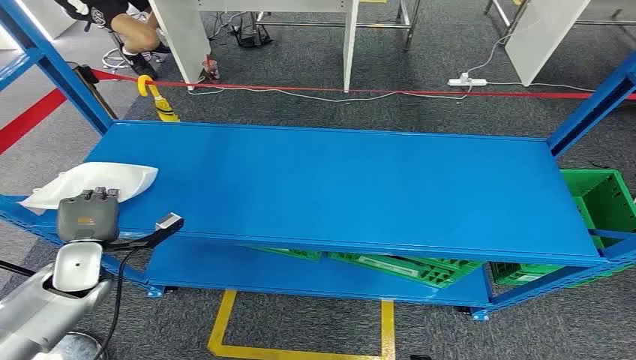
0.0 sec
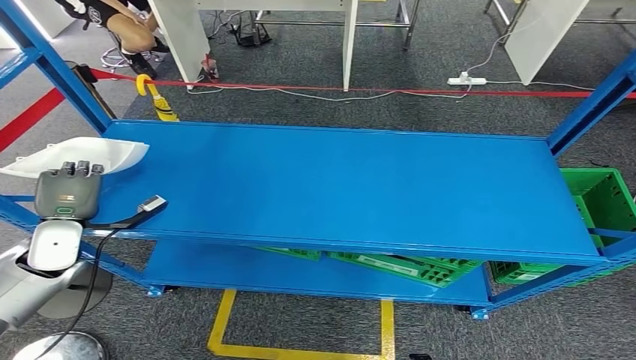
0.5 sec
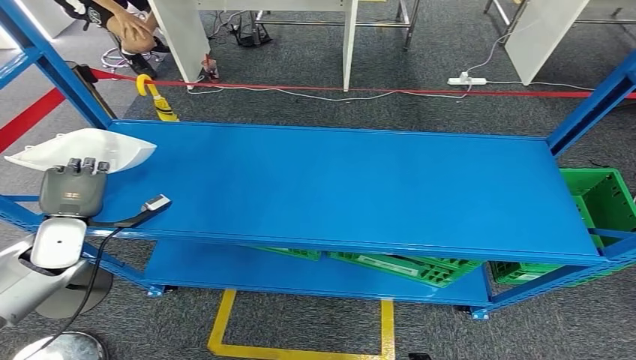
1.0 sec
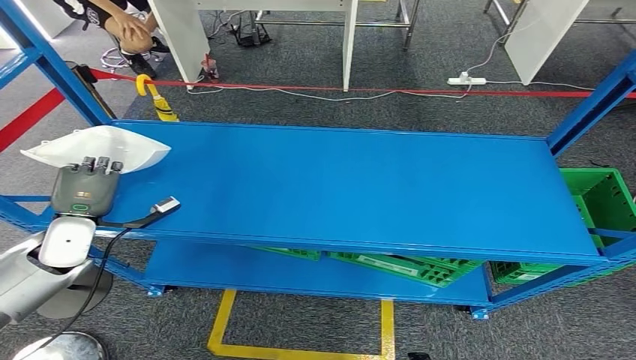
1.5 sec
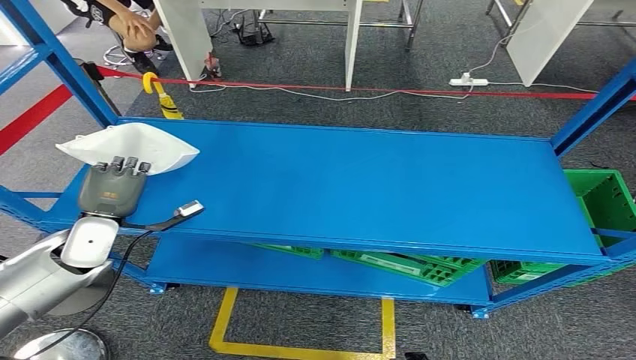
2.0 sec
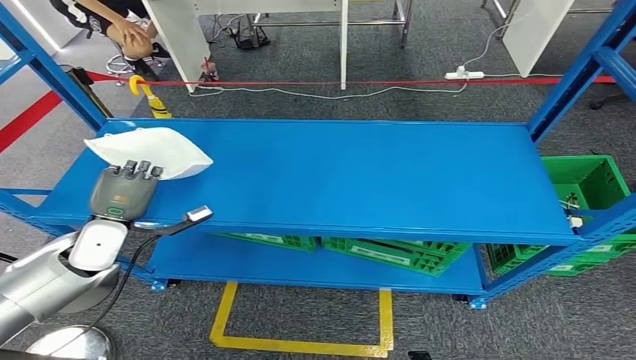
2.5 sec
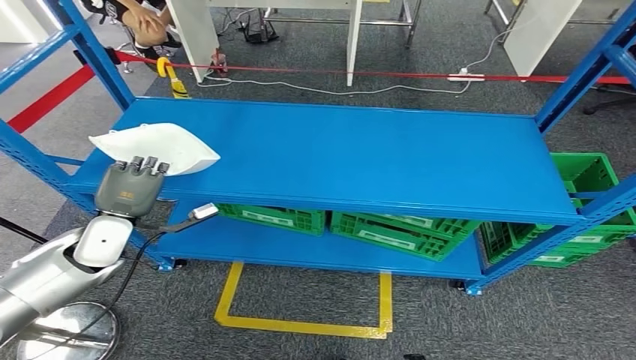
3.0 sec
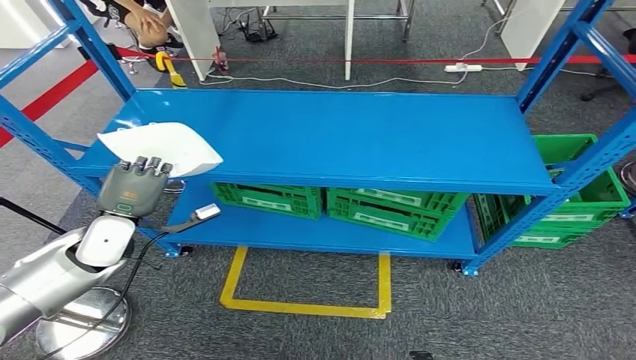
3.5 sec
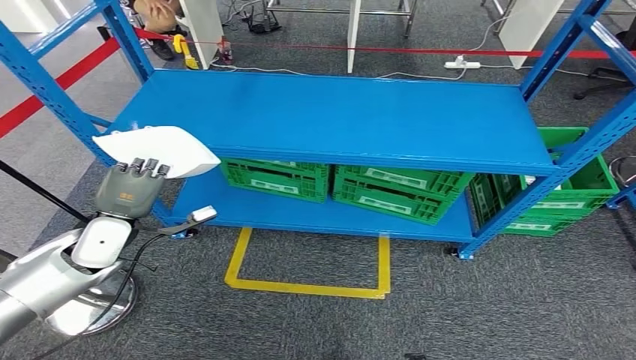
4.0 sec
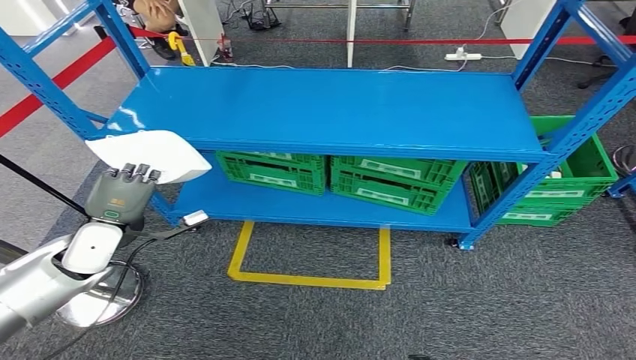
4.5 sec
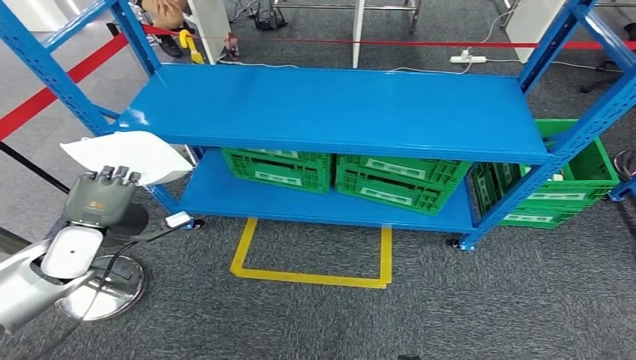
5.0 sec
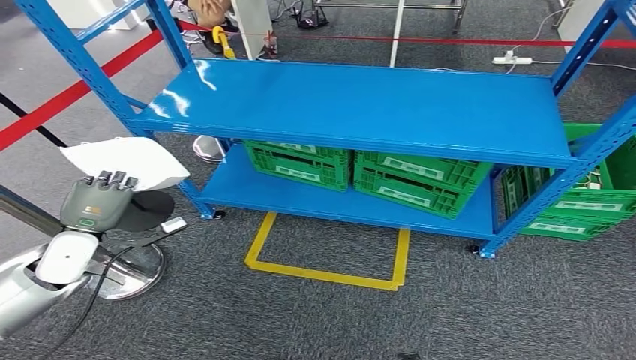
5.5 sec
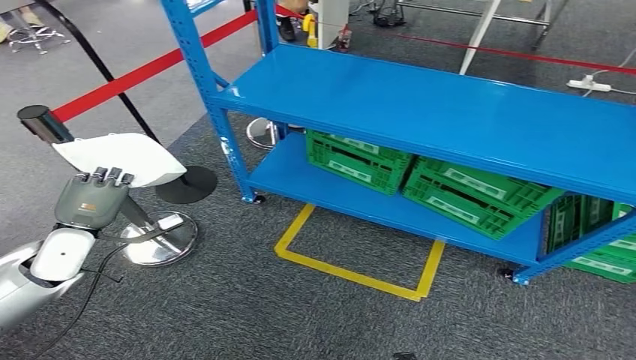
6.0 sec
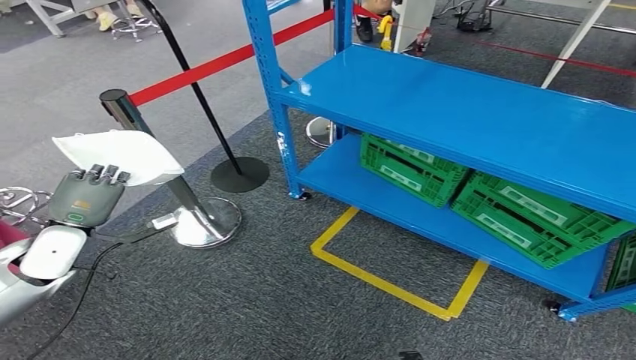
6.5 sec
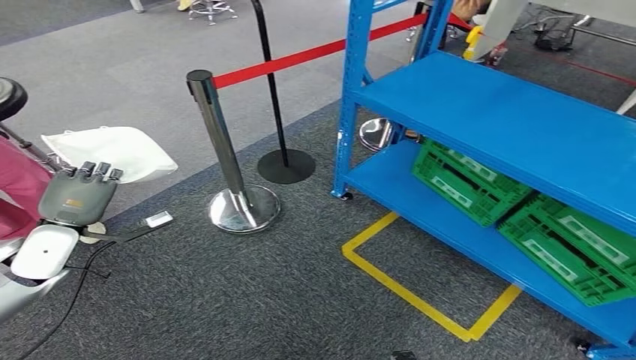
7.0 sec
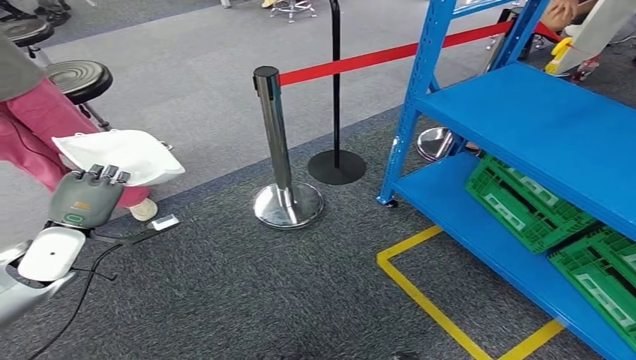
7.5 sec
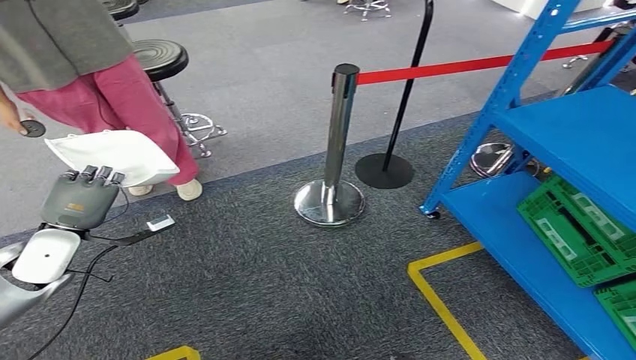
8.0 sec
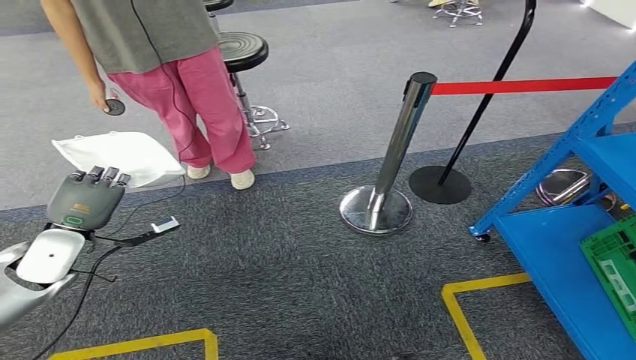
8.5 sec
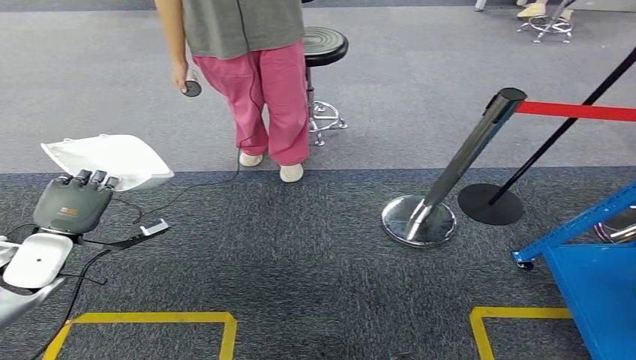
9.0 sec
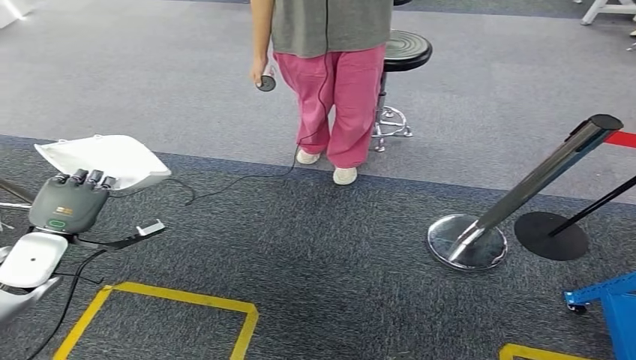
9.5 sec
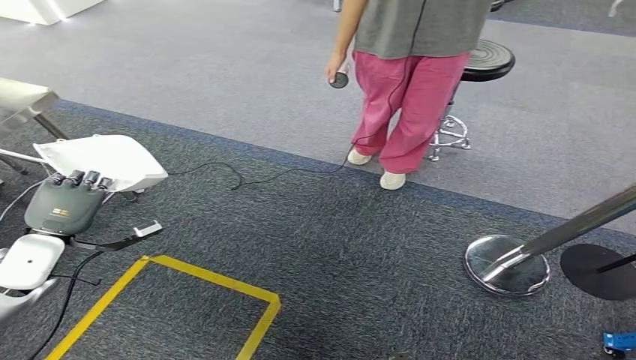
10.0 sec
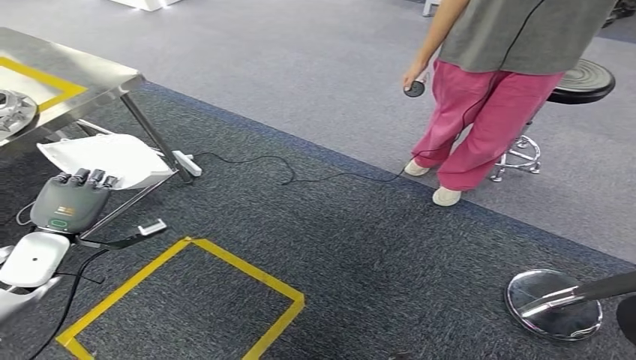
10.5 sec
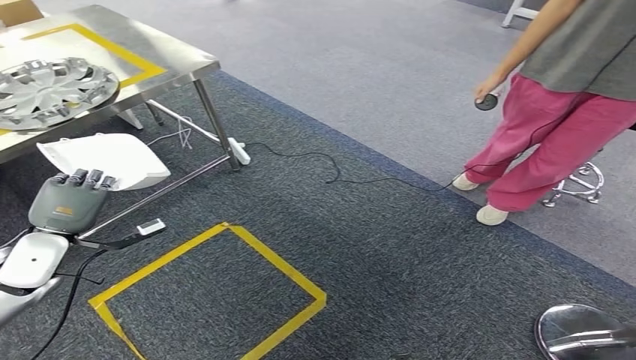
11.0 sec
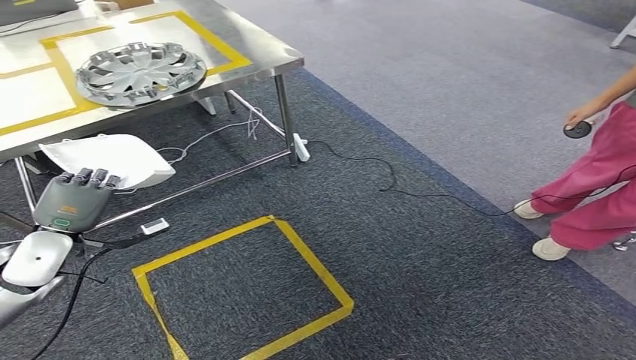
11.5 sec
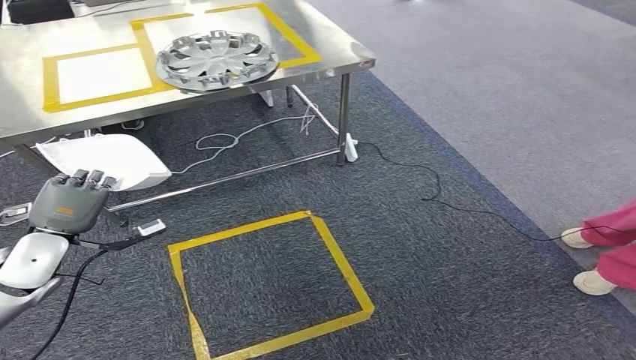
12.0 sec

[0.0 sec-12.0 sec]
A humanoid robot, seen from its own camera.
Step, 0.0 sec to 4.5 sec: Pick up the small component from the shelf.

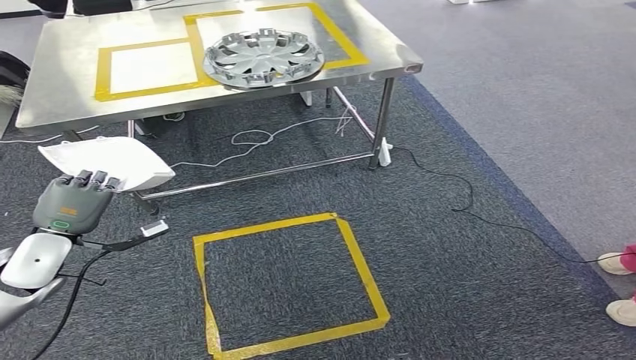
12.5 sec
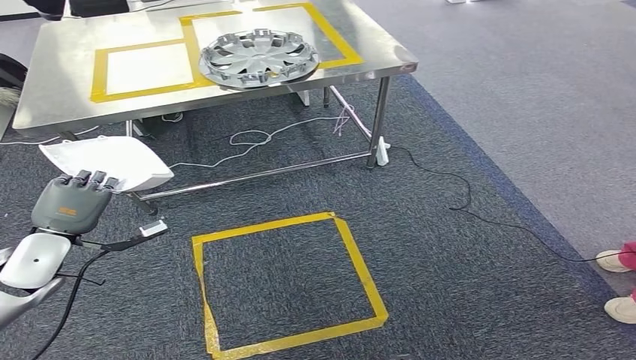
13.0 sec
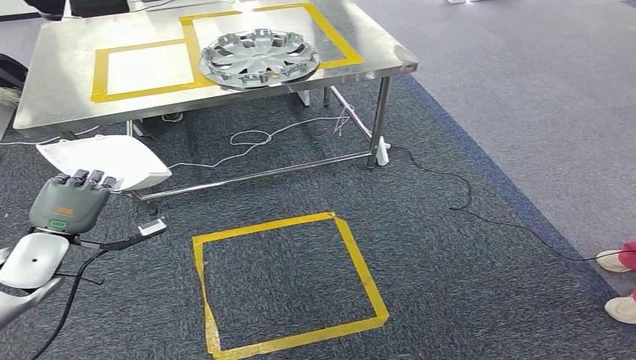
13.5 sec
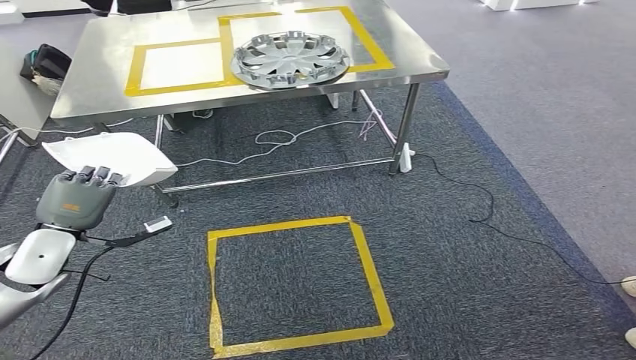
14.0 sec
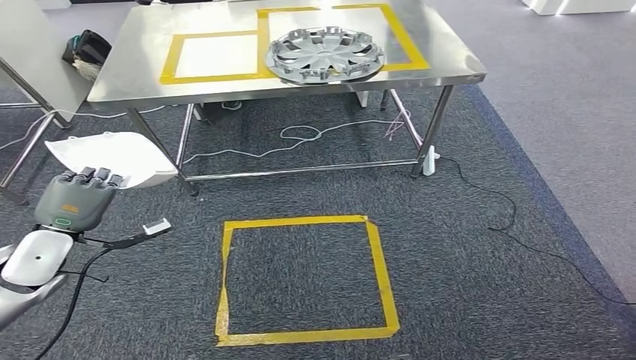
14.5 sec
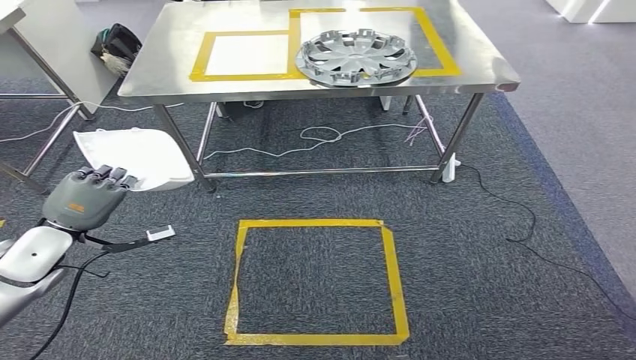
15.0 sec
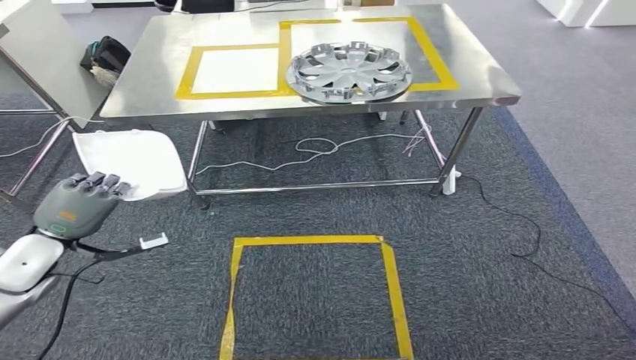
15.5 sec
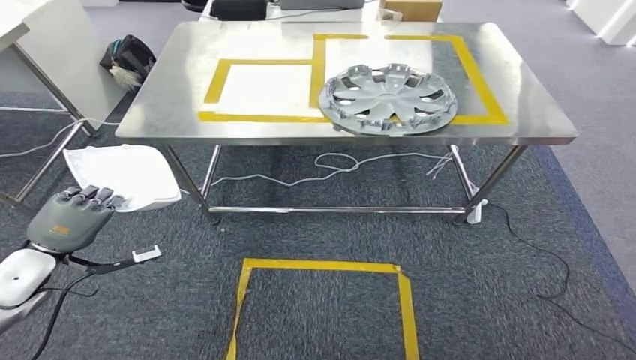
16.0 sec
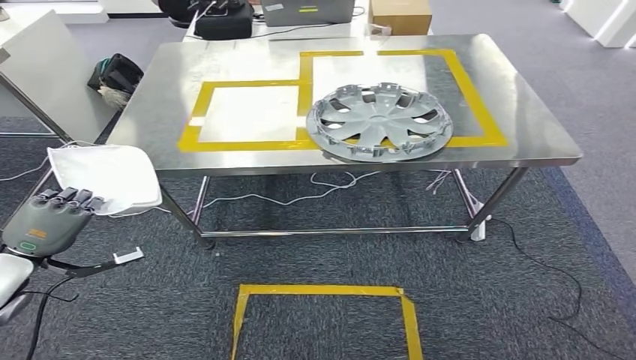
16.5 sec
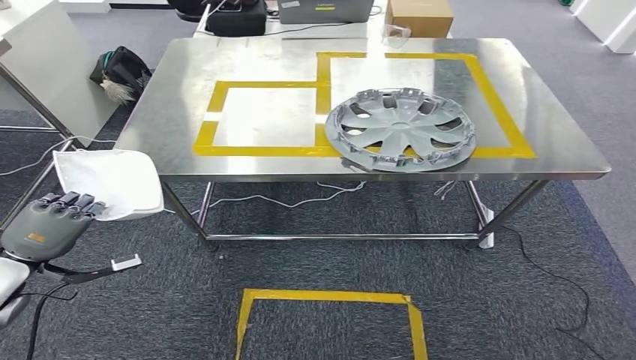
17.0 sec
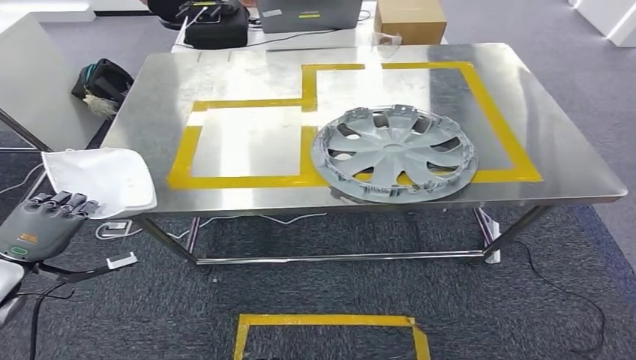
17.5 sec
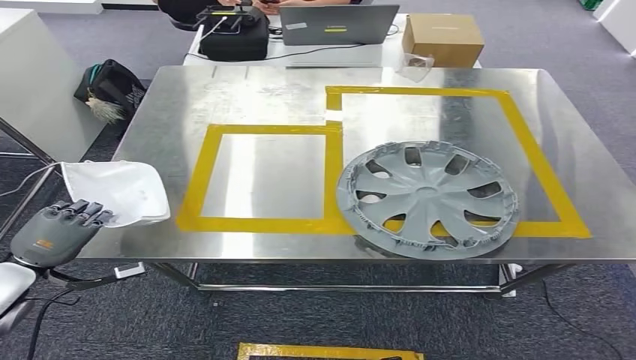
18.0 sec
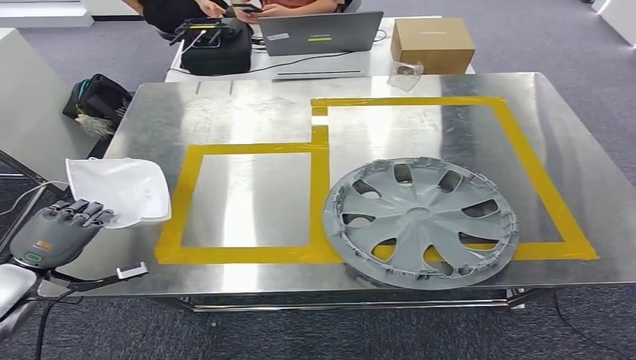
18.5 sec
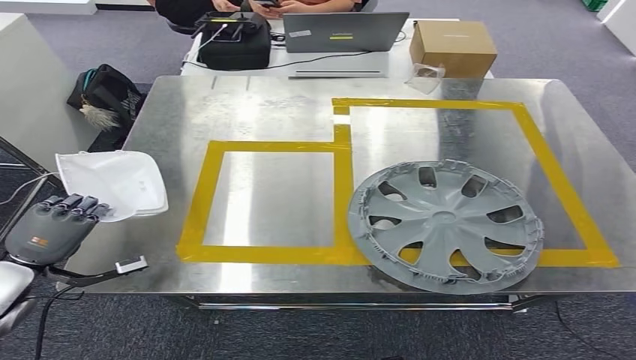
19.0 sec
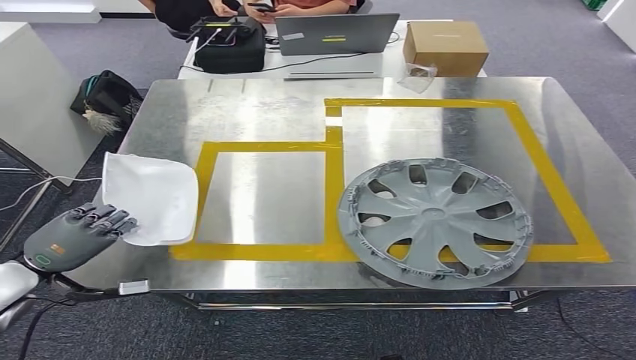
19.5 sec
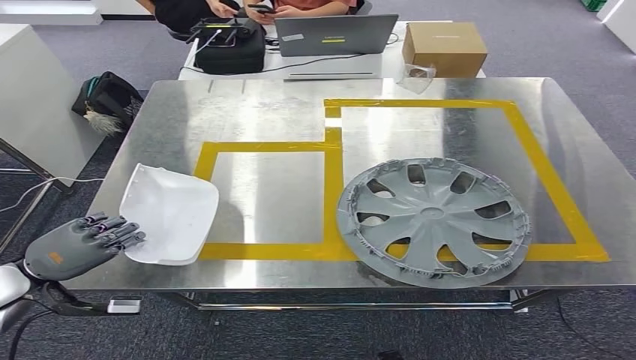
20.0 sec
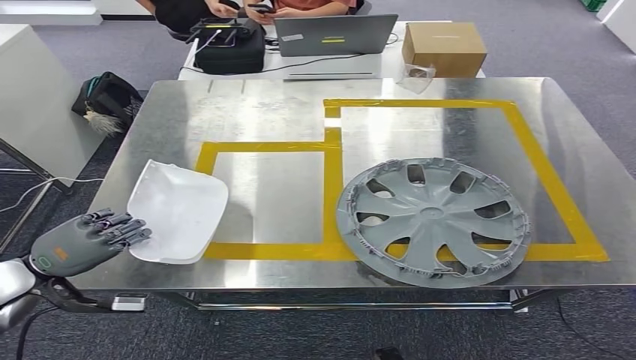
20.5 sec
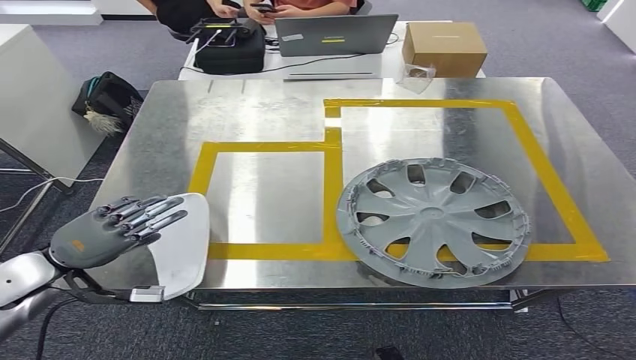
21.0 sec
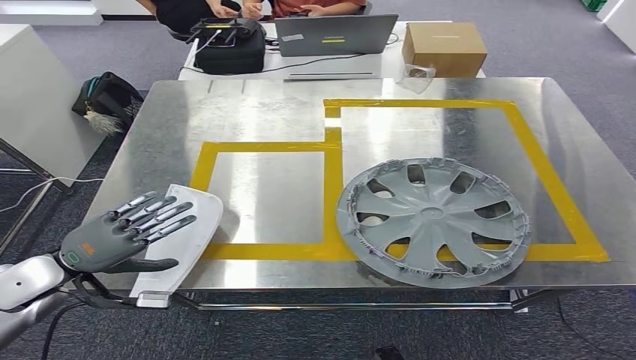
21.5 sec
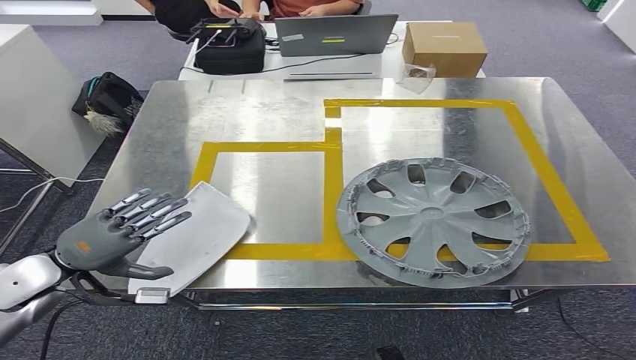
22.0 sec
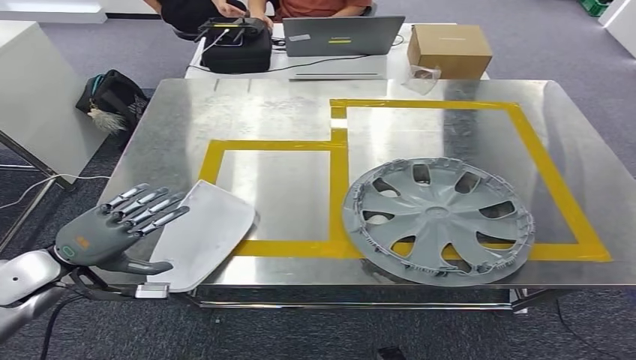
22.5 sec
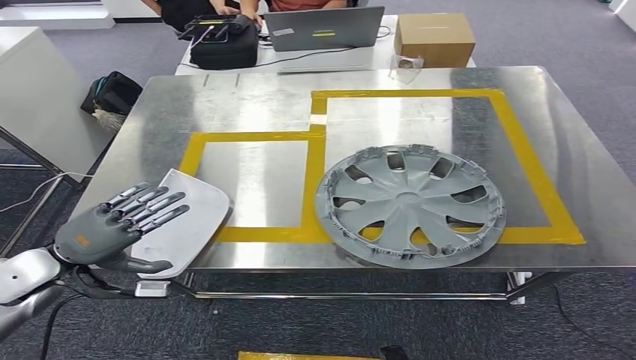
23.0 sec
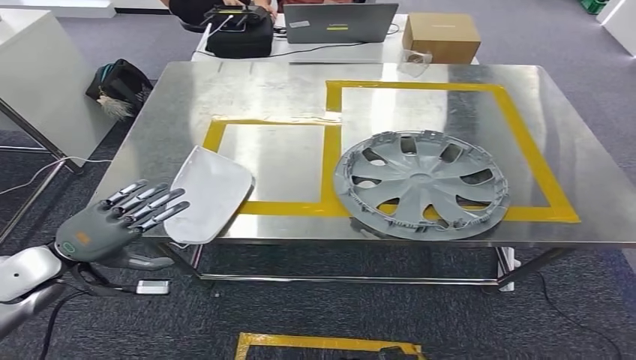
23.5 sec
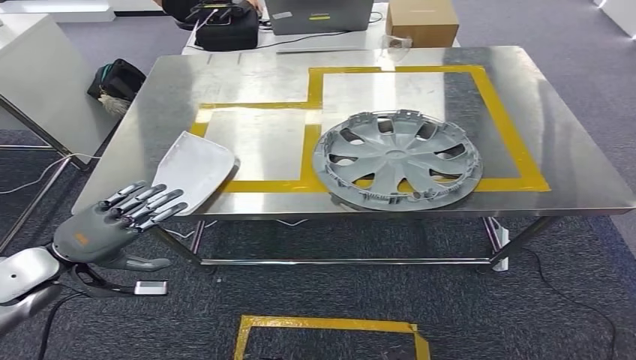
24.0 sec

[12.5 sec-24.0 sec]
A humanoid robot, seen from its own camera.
Step, 12.5 sec to 17.0 sec: Move the small component to the workbench.
20.0 sec to 22.0 sec: The hands move only a little.
